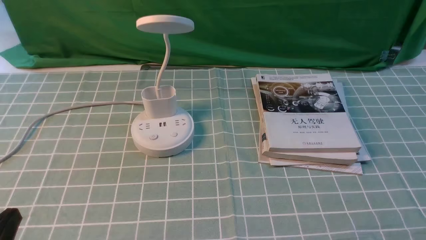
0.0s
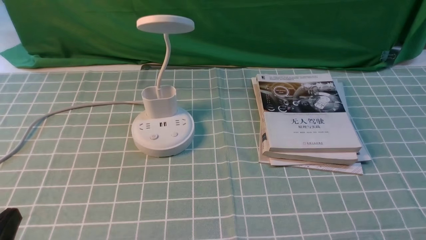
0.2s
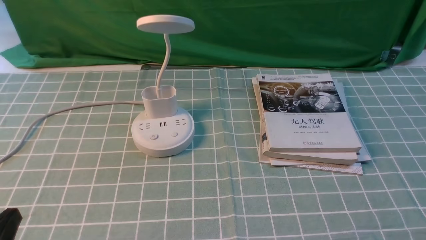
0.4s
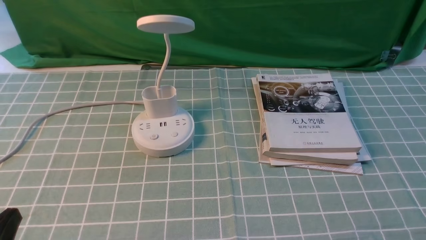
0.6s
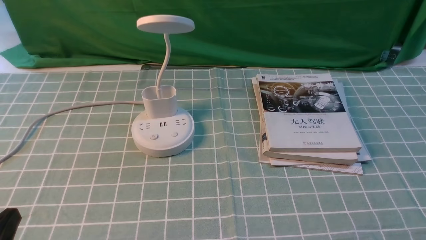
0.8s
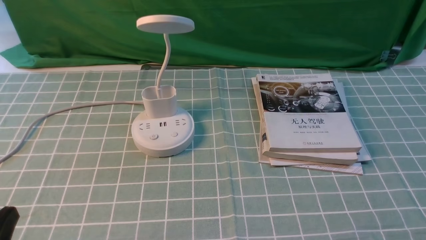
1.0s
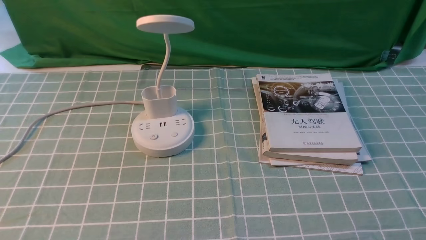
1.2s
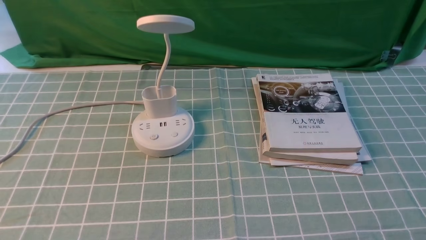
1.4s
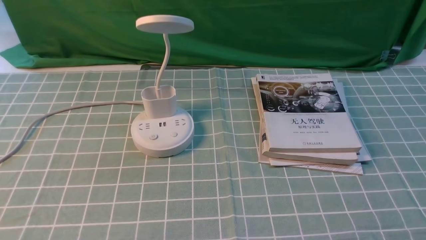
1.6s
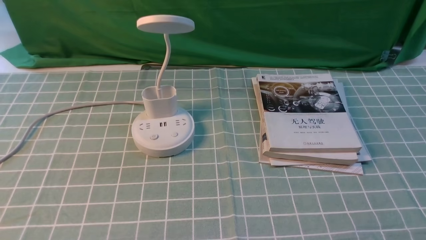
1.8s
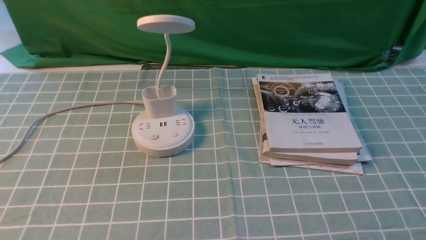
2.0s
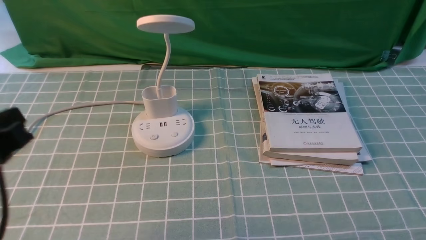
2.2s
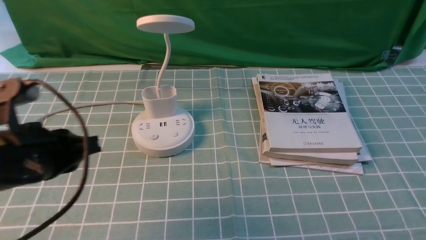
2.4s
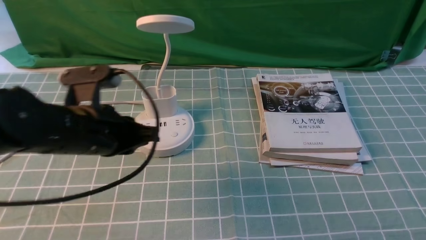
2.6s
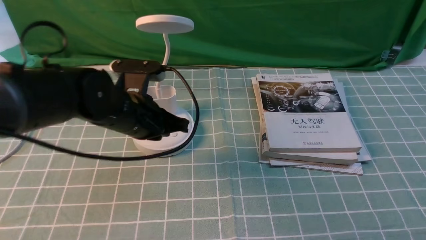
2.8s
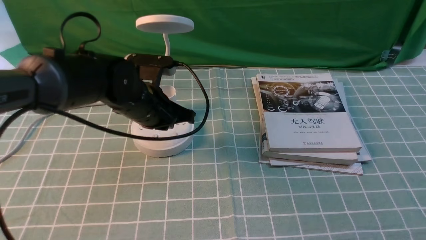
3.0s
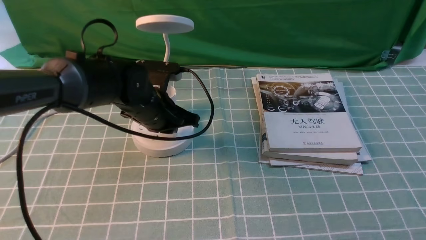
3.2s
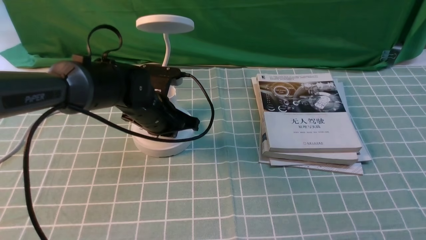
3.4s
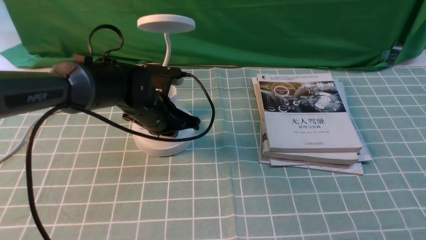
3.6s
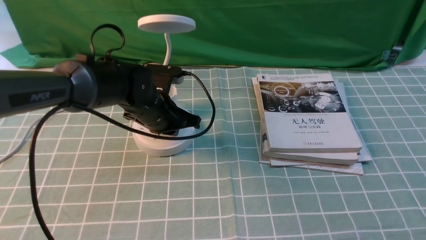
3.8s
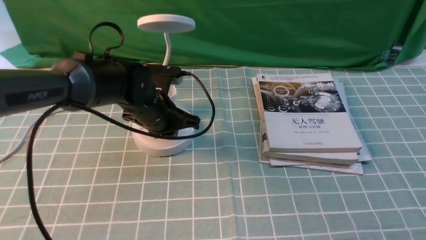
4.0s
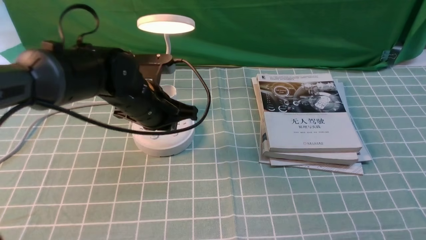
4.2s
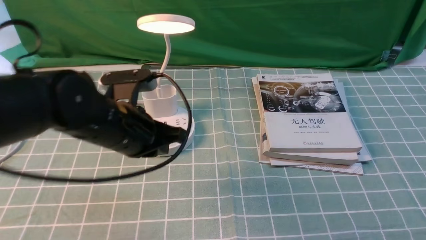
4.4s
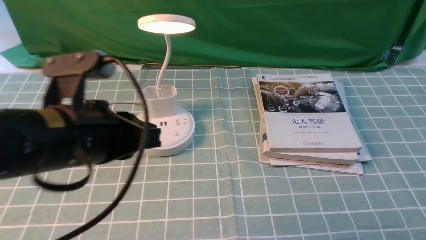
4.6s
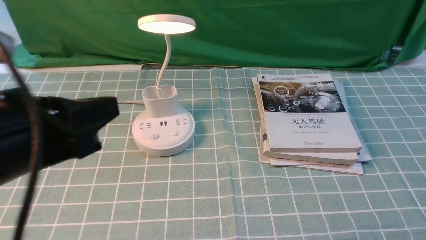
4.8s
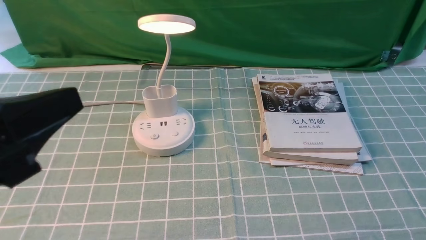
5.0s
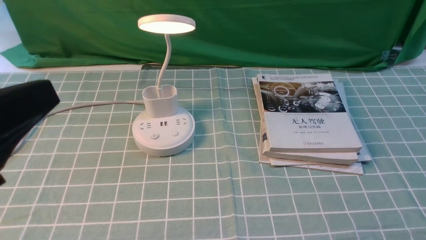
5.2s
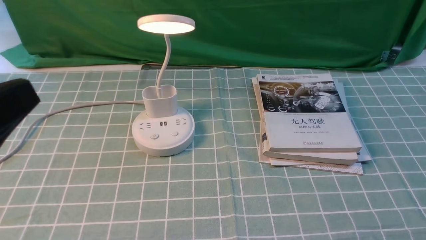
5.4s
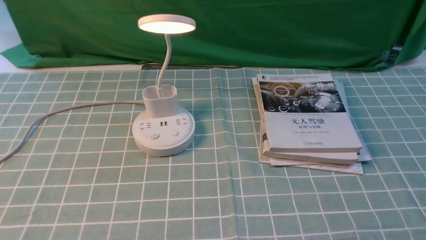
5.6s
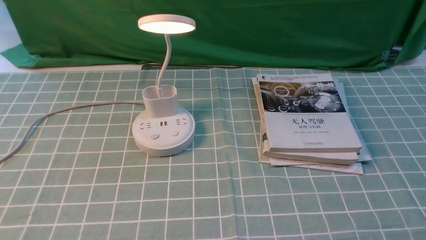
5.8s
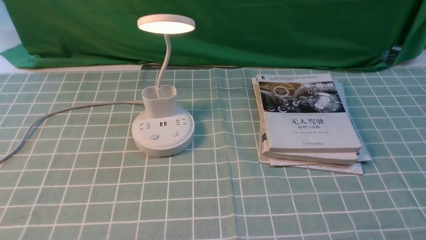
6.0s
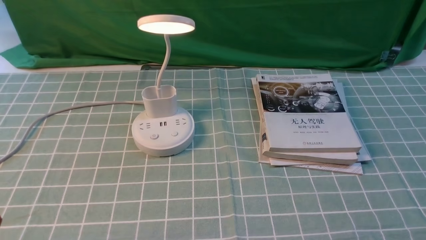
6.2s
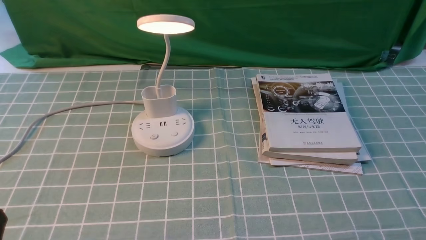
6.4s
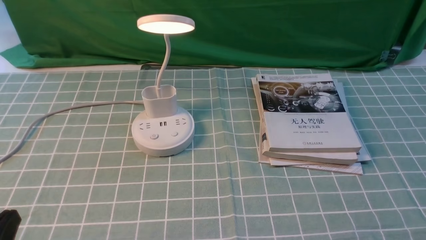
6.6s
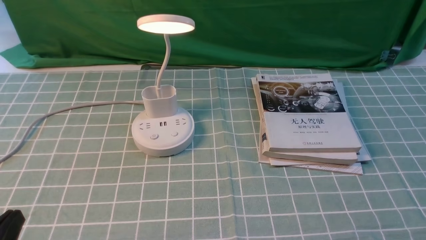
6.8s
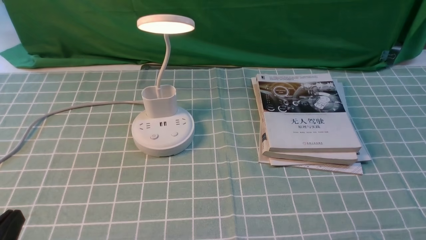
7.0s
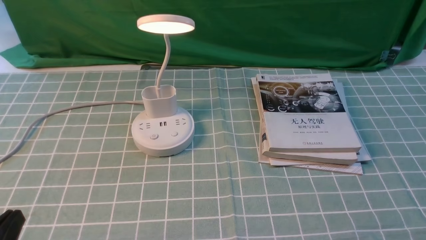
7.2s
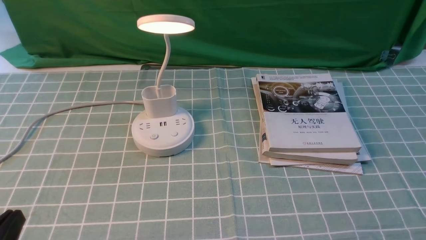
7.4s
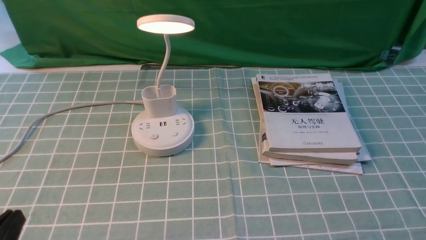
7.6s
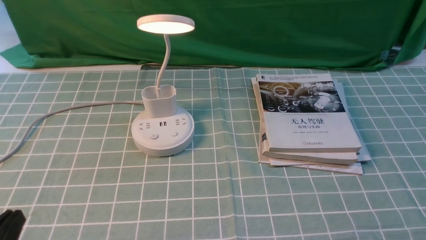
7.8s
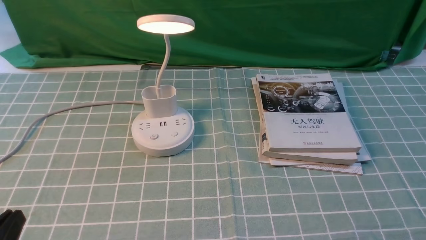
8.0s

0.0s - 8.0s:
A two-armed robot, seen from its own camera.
Step, 0.0s - 4.2s: use the left arm to press the button switch on the lamp holder.
1.6s - 3.2s: The left gripper goes roughly 40 cm forward and to the right.
3.2s - 4.8s: The left gripper travels backward and upward by about 30 cm.
4.8s - 6.4s: The left gripper travels downward, to the left and backward by roughly 20 cm.

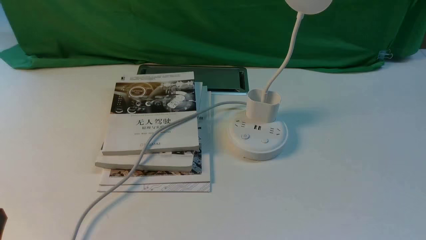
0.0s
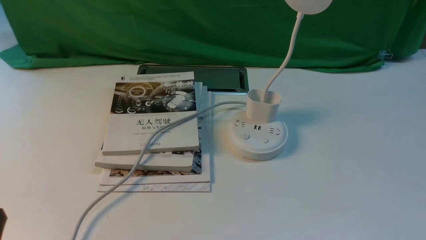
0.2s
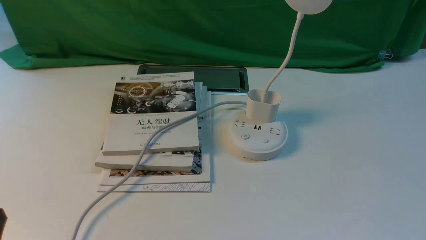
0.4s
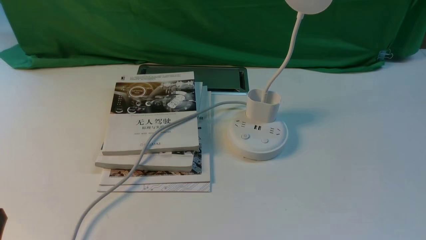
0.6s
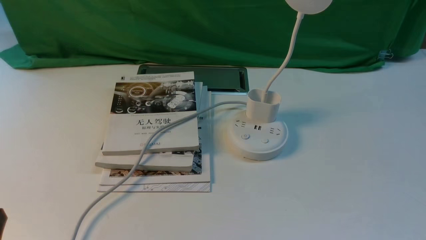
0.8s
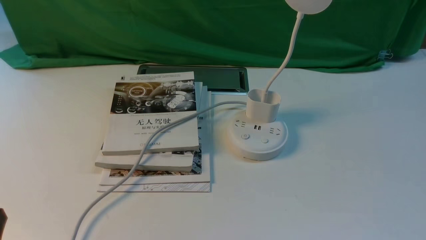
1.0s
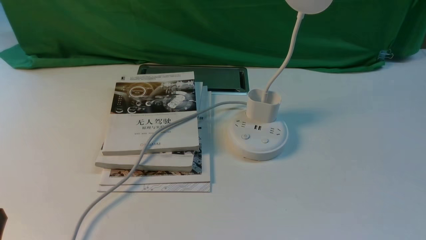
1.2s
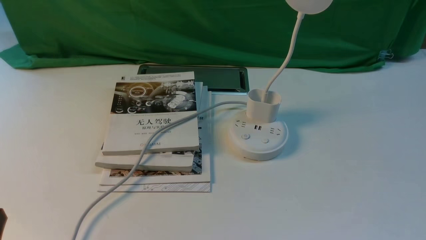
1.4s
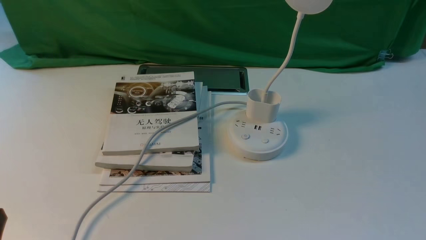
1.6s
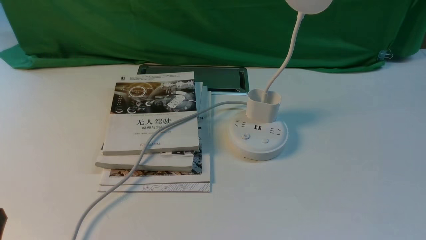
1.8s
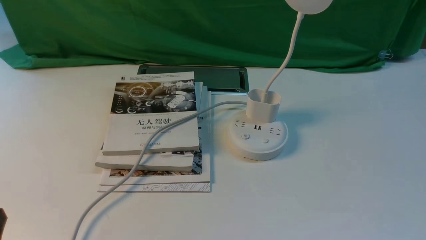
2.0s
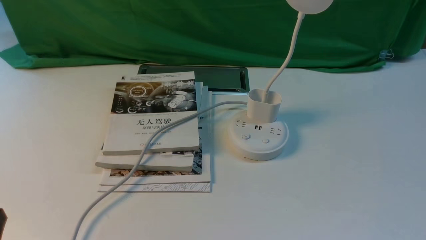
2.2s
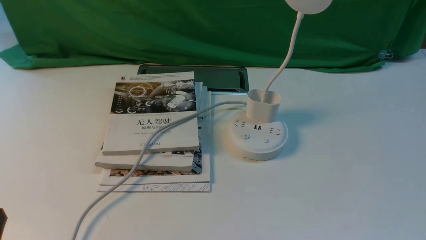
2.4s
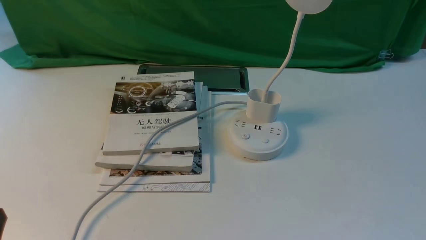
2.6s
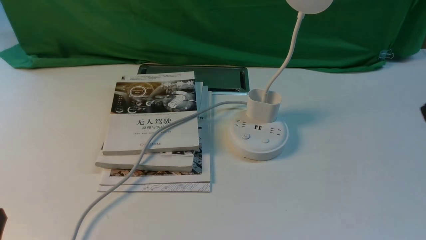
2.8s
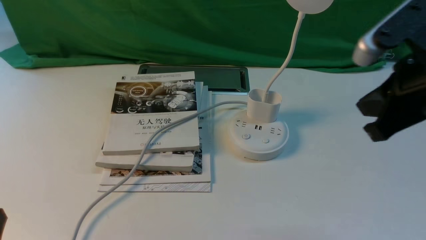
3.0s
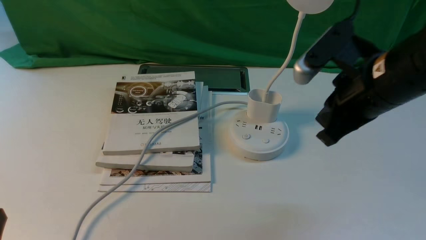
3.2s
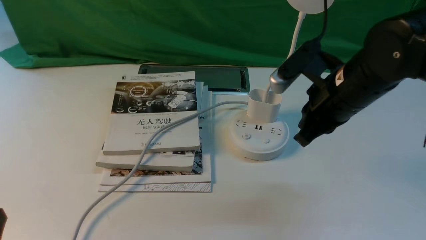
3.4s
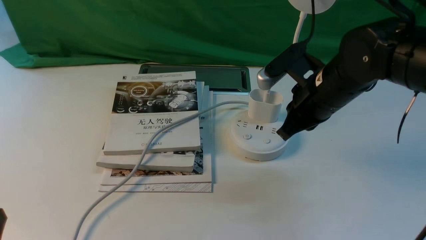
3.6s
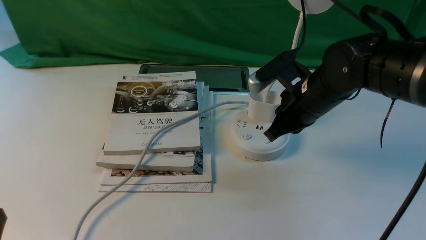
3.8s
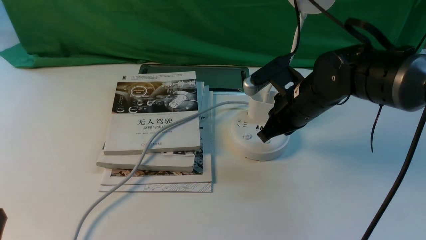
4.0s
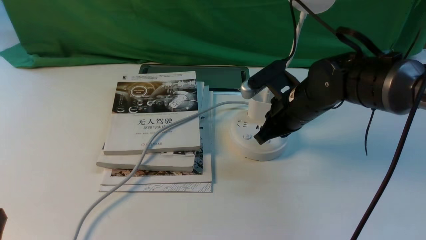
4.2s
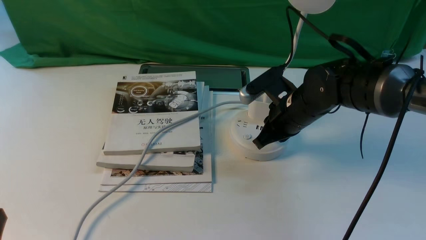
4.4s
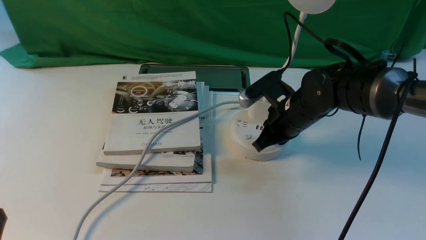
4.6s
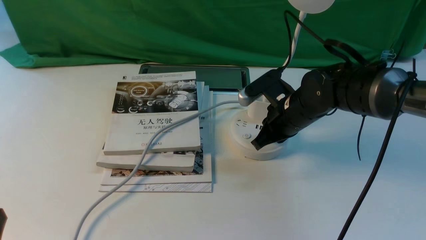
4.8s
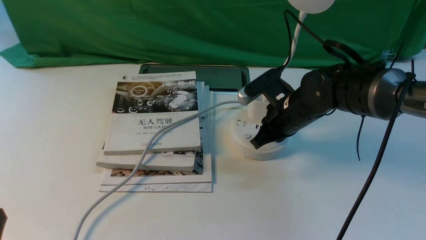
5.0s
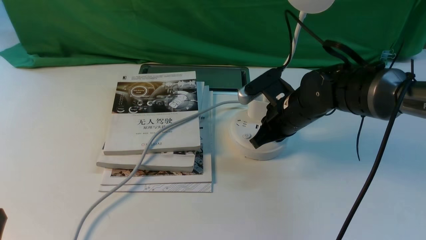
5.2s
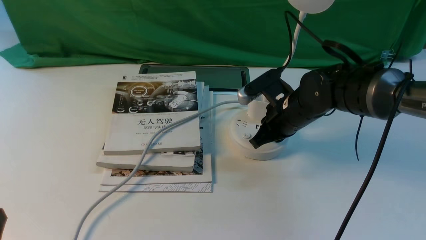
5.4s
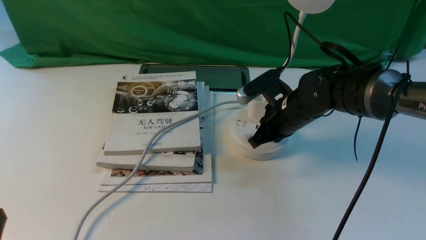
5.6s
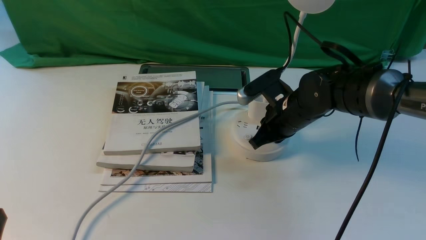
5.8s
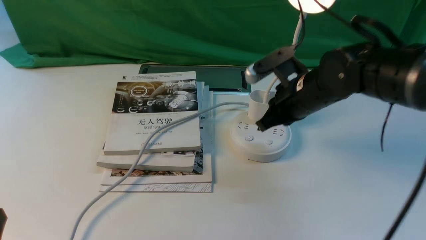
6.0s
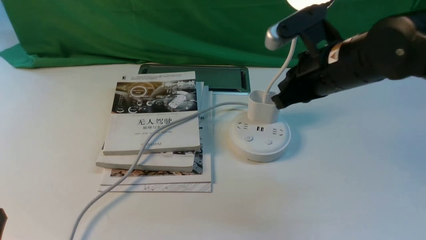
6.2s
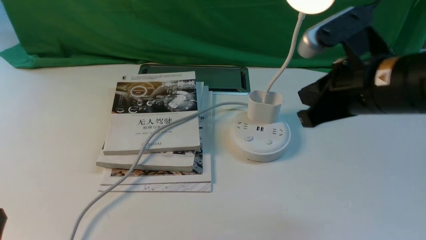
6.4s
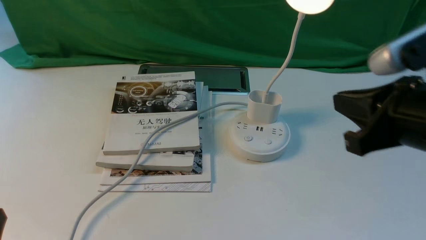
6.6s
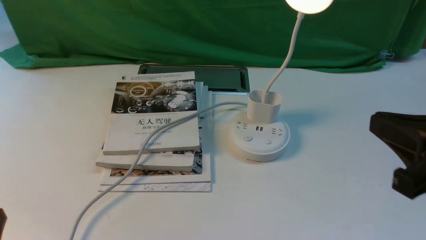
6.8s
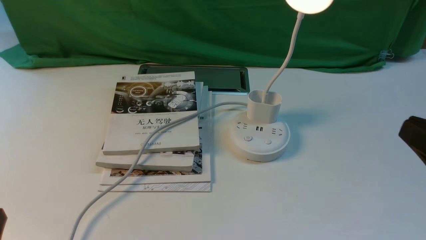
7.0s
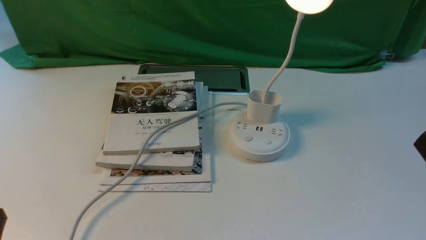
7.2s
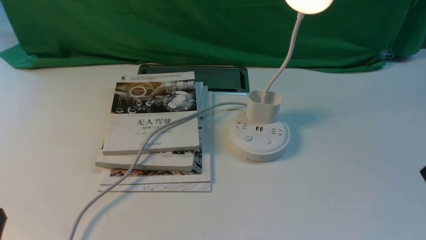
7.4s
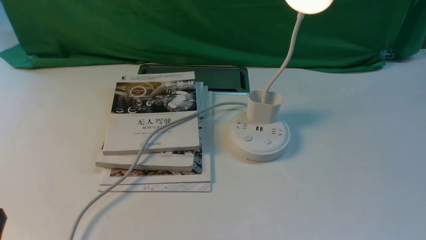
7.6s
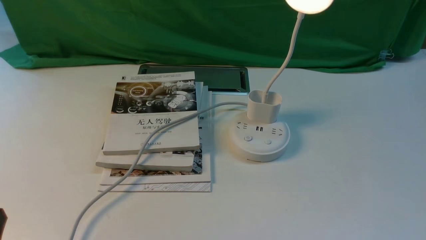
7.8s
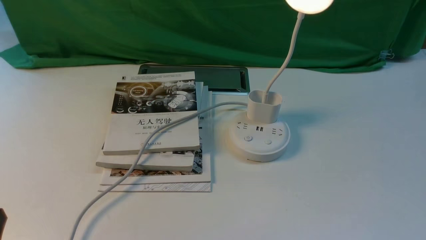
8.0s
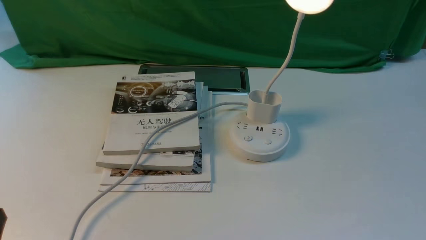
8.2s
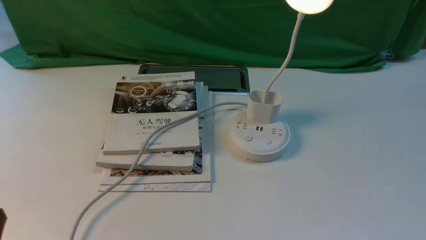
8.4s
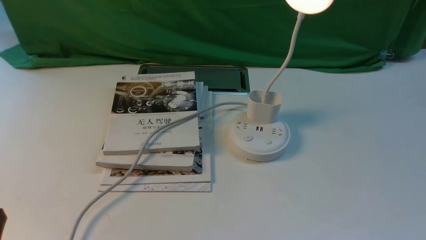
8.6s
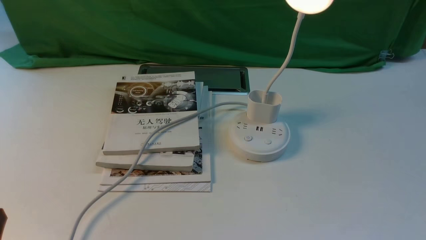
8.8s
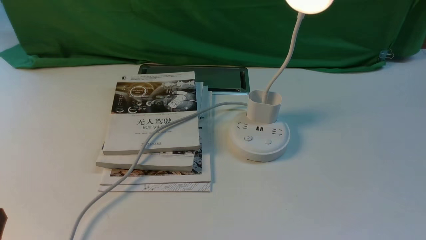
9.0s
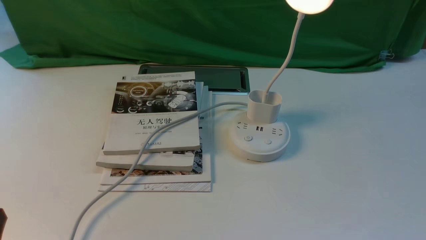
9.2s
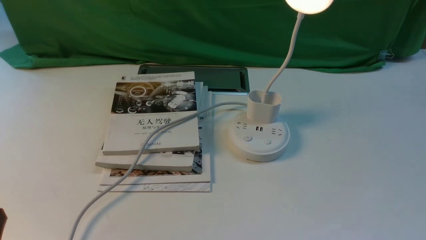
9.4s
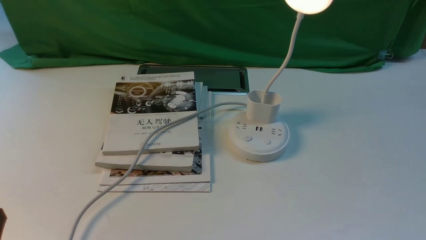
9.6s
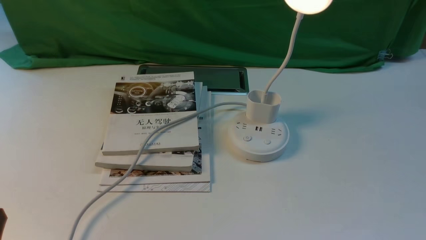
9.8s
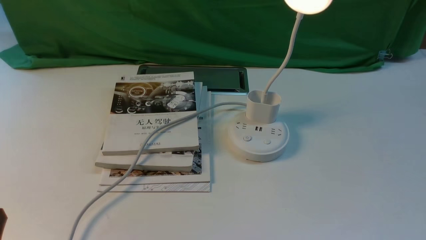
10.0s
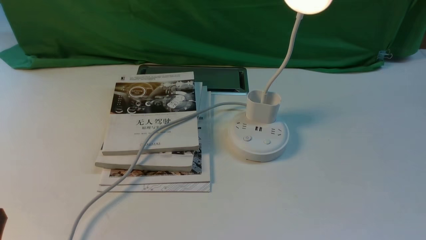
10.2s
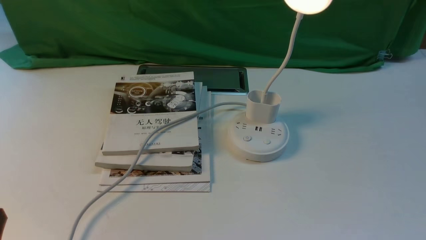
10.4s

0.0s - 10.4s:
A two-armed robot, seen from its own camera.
Step, 0.0s - 5.8s: use the right arm to press the button switch on the lamp holder.
1.4s - 3.0s: The right gripper travels forward, upward and to the left by some 25 cm, and closes its fingers.
3.0s - 4.4s: The right gripper shifts approximately 25 cm downward, forward and to the left.
4.4s - 6.0s: The right gripper travels upward by approximately 5 cm.
6.0s - 7.4s: The right gripper is displaced backward and to the right by some 30 cm, and opens up.
9.0s - 10.4s: The two grippers keep their place.
